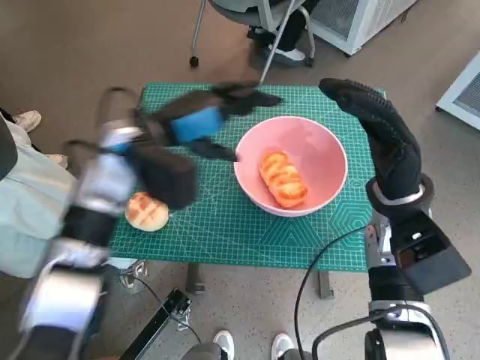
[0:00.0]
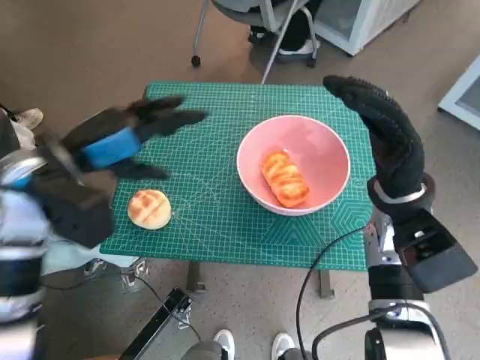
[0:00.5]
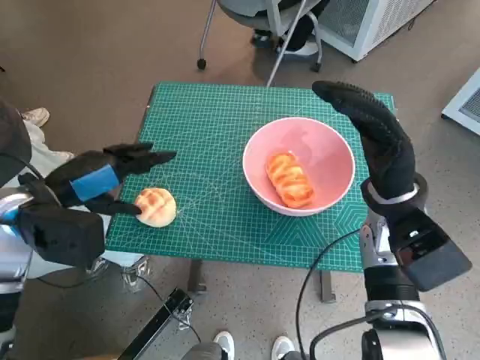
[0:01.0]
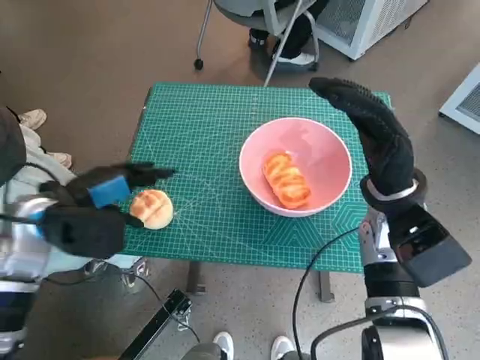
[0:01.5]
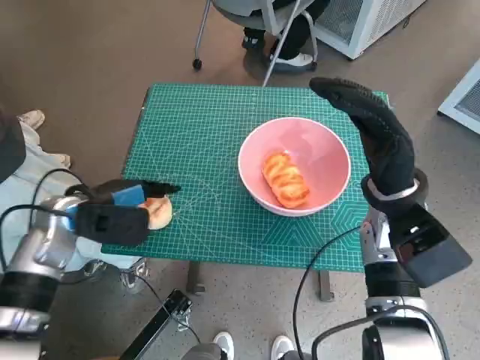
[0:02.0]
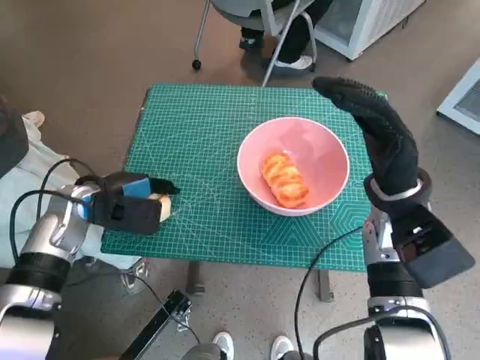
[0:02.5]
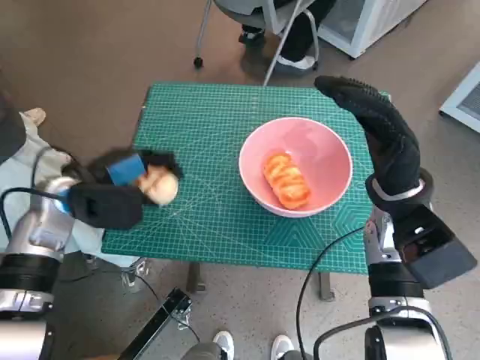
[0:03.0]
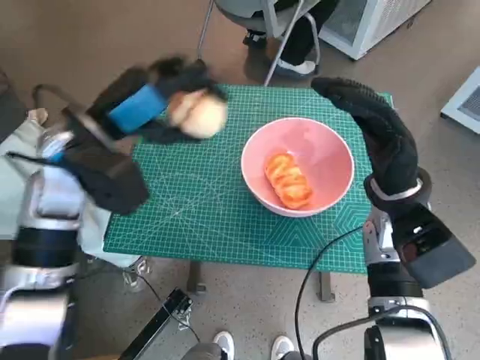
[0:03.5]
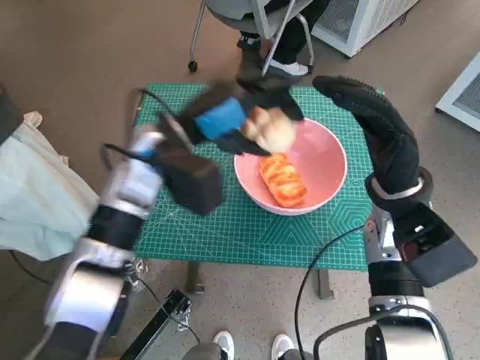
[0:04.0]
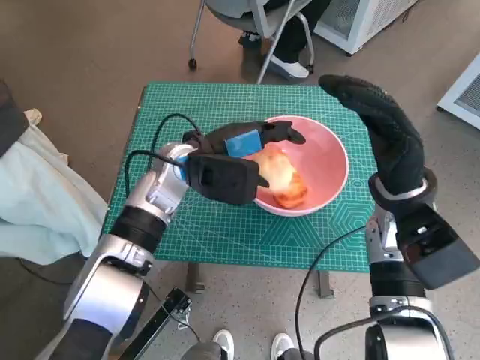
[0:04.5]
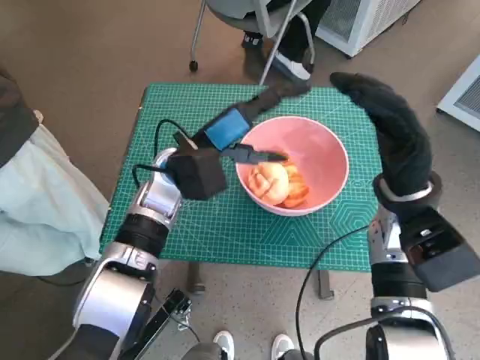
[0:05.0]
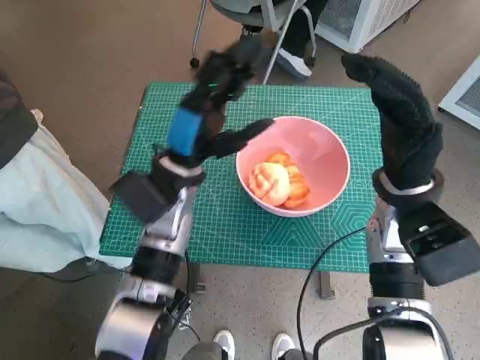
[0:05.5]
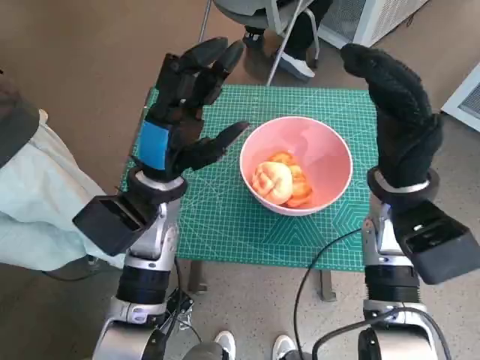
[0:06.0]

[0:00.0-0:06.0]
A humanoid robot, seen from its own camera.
Task of the whole recording: Push the bowl to the center of the table and put the bread into the bowl.
Step, 0:00.0 to 0:02.5: Grasp the round bread with left hand.
Step, 0:03.0 to 0:04.5: Place the round bread in pink bowl with left hand.
0:00.0 to 0:02.0: The left hand goes approximately 15 cm to the left, downward and backward.
0:02.0 to 0:04.0: The left hand goes approximately 15 cm to the right and upward.
0:04.0 to 0:06.0: The left hand is displaced downward by roughly 5 cm.

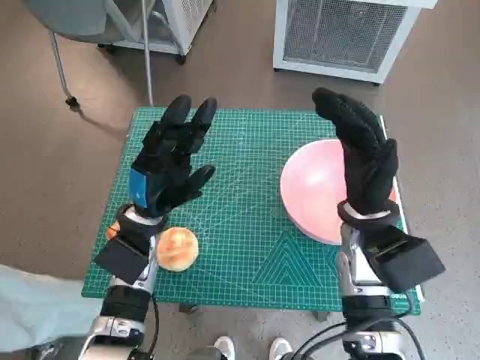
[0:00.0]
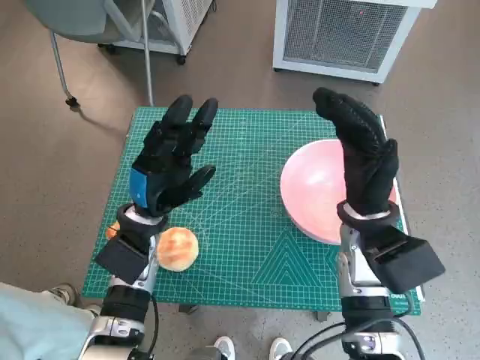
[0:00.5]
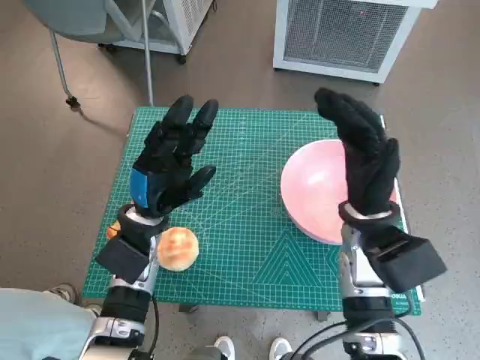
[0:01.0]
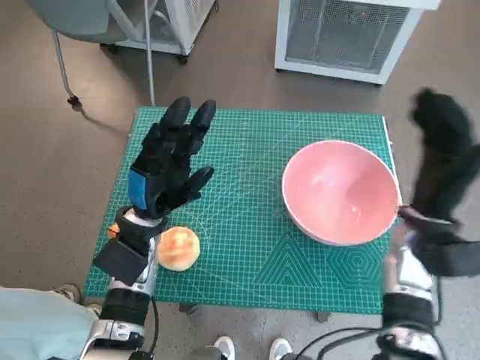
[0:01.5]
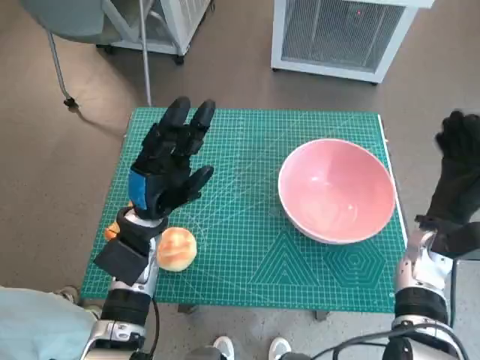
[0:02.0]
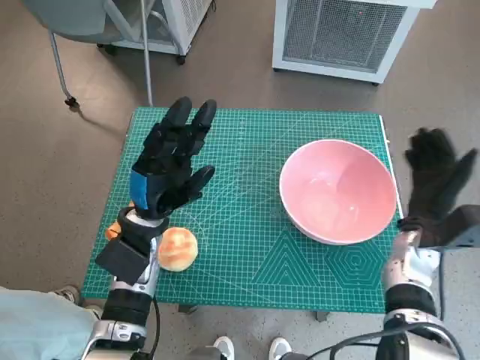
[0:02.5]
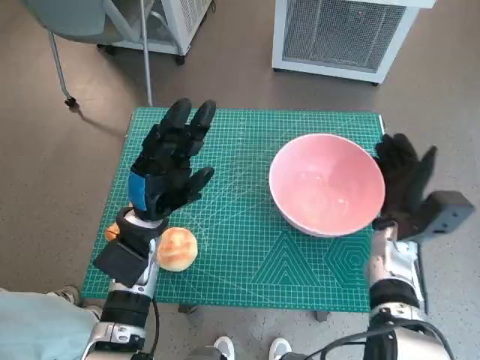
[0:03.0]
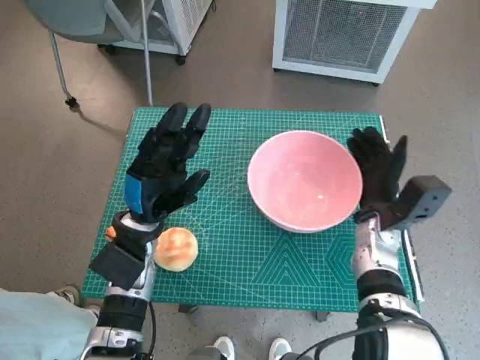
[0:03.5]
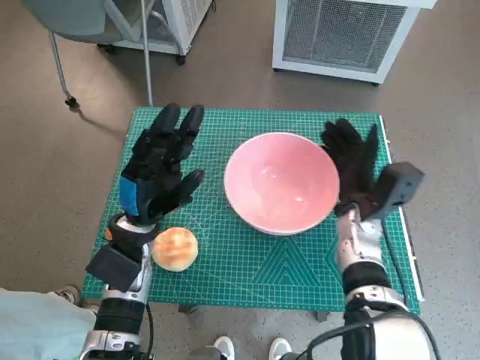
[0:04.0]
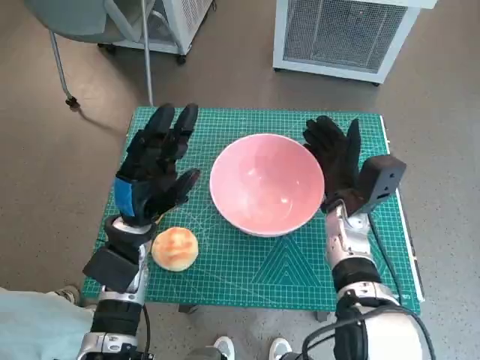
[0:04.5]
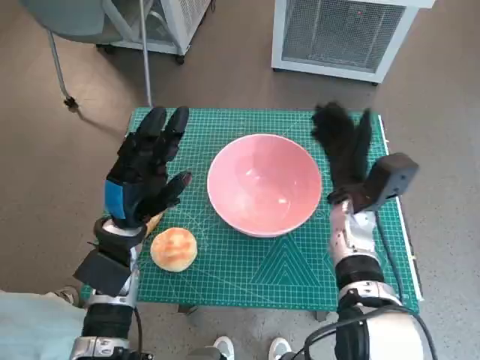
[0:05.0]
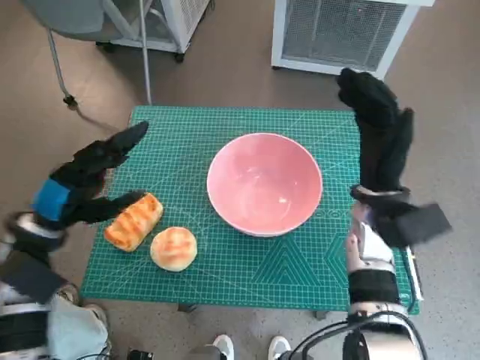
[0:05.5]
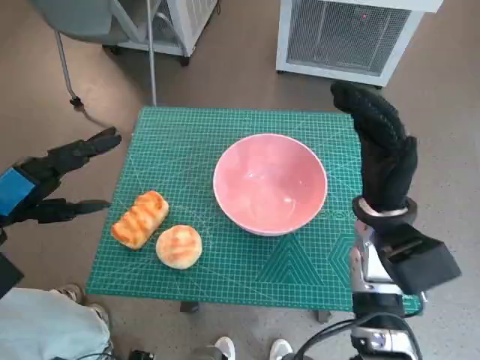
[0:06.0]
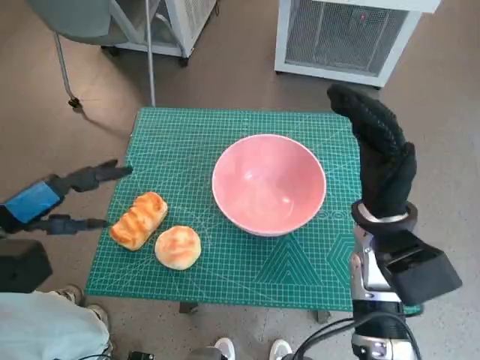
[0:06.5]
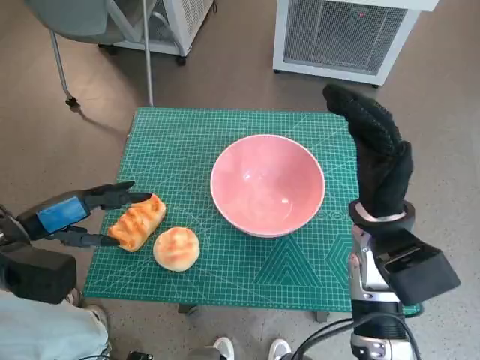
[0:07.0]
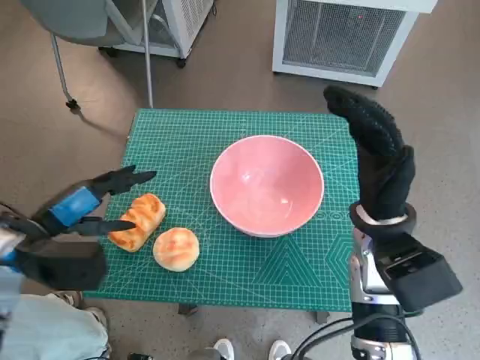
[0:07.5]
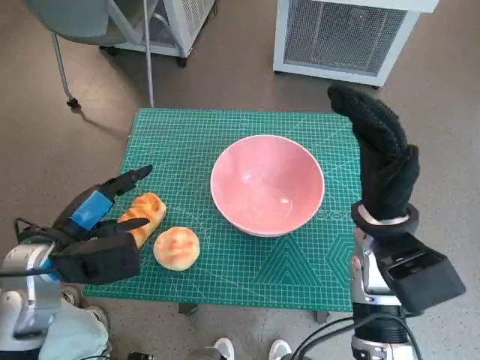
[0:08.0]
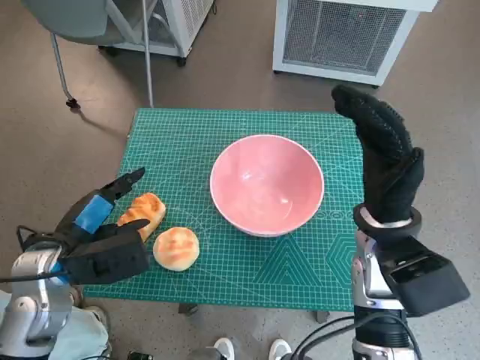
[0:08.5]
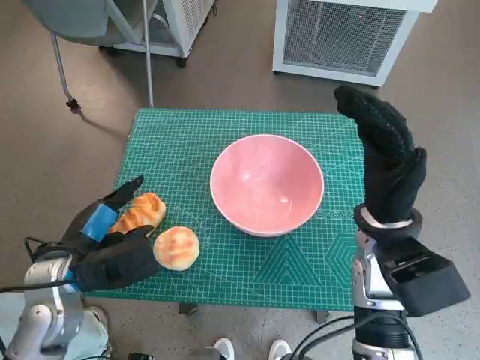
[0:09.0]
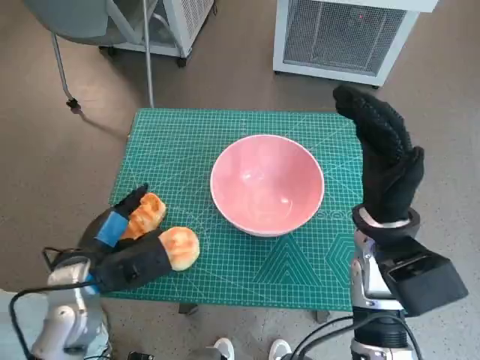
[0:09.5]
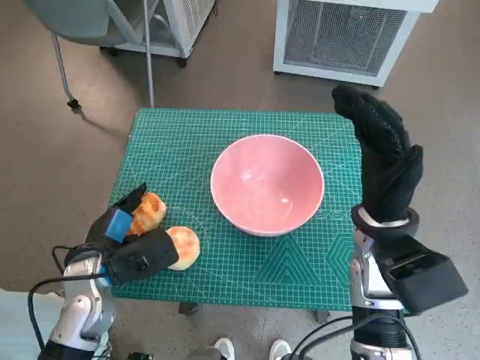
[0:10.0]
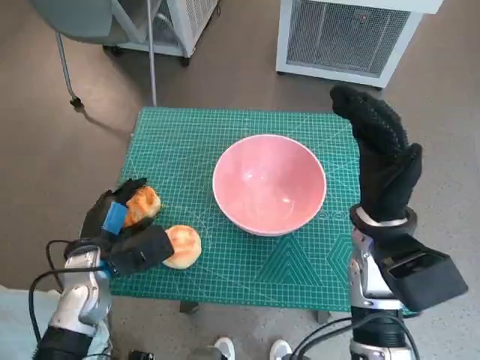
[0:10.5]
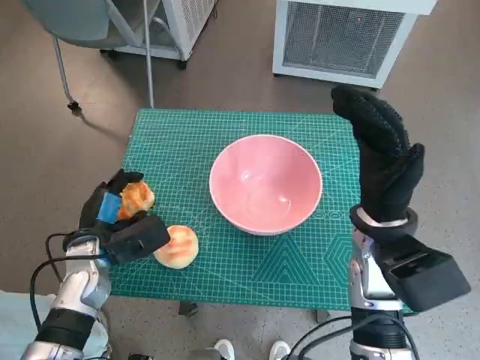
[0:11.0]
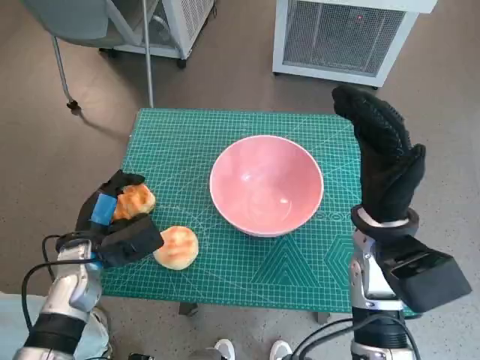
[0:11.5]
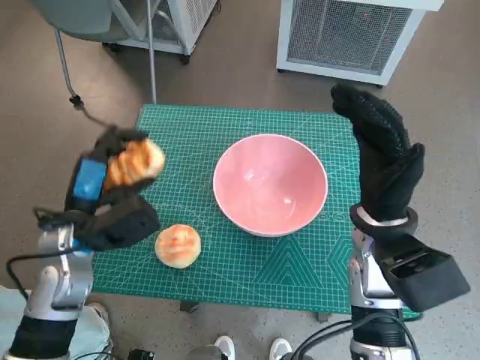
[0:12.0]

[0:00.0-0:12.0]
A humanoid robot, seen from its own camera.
Task of the whole recording: Push the bowl to the center of the table and put the bread into the bowl.
Step, 0:00.0 to 0:05.0: Move the pink bowl to the center of table with right hand.
Step, 0:05.5 to 0:10.5: Grasp the long bread with left hand.
0:02.0 to 0:04.0: The right hand is displaced to the left by approximately 10 cm.
0:04.0 to 0:06.0: The left hand is displaced to the left and upward by some 20 cm. Meanwhile the right hand moves upward, some 10 cm.
0:06.0 to 0:08.0: The left hand travels to the right by approximately 5 cm.
0:08.0 to 0:10.0: The left hand shifts approximately 5 cm downward.

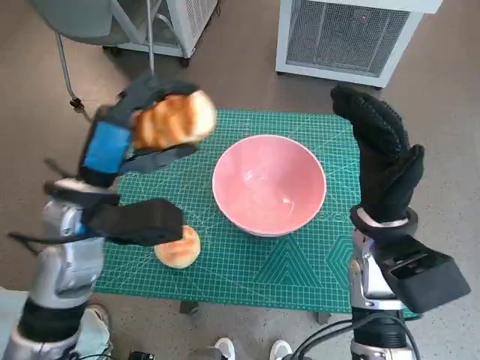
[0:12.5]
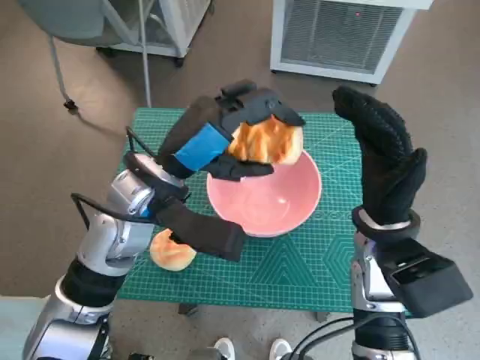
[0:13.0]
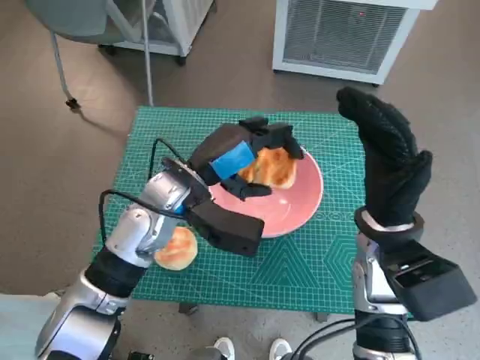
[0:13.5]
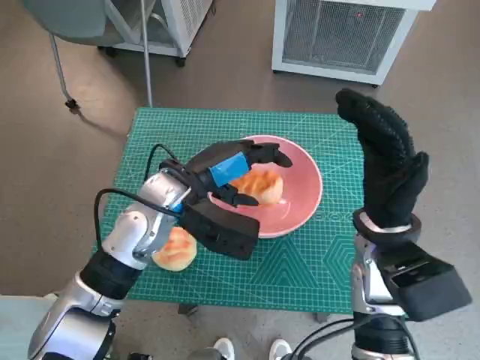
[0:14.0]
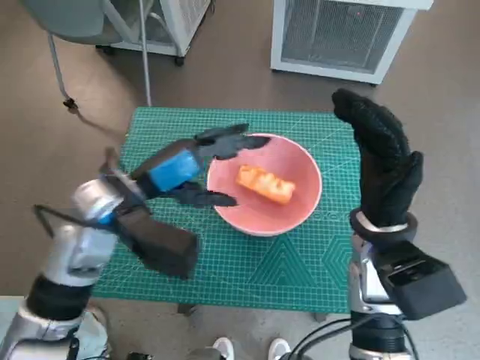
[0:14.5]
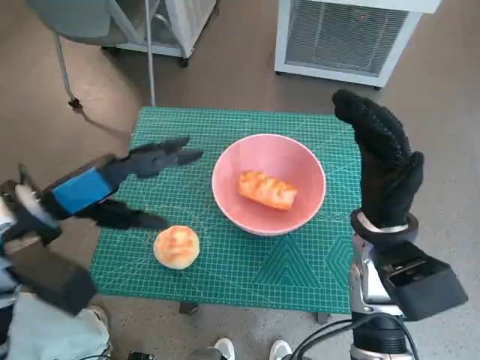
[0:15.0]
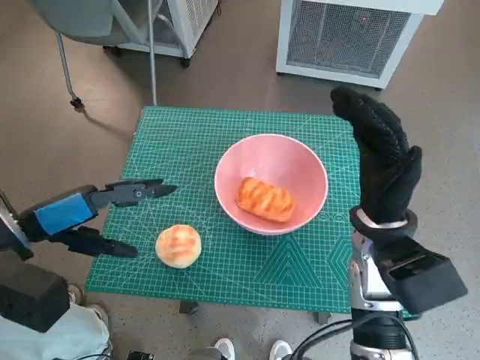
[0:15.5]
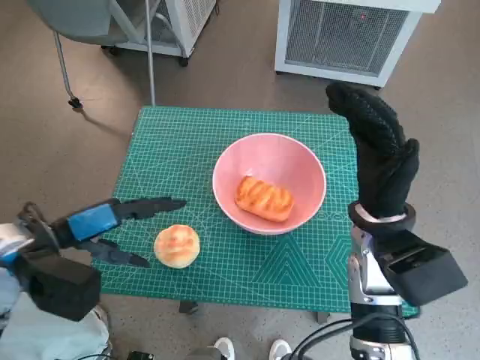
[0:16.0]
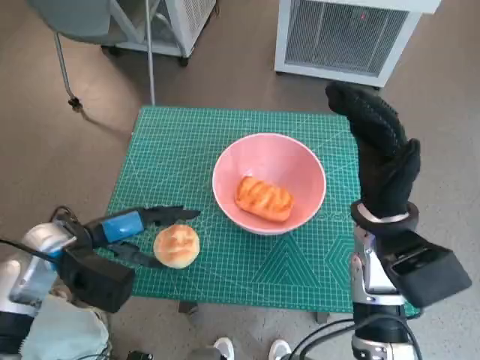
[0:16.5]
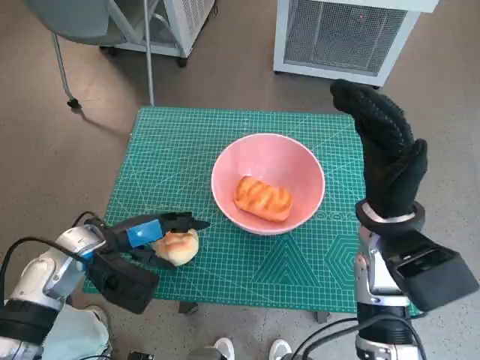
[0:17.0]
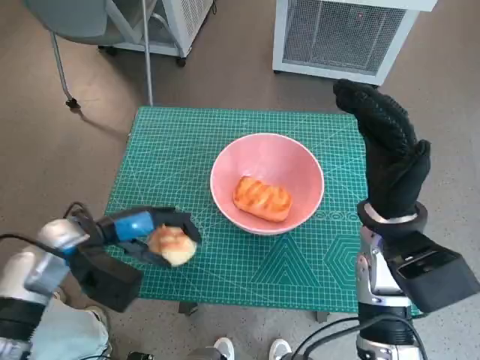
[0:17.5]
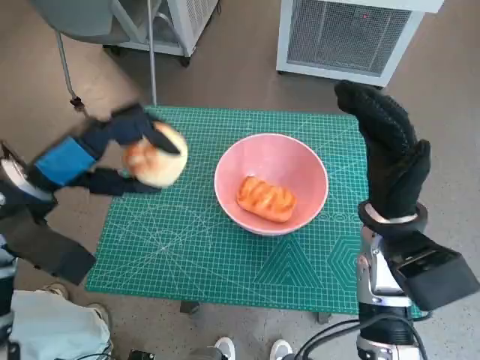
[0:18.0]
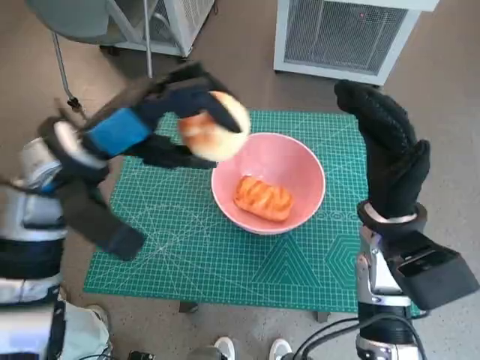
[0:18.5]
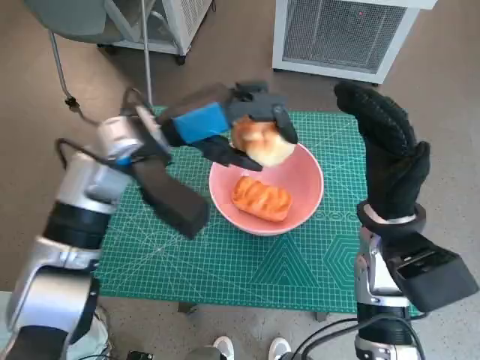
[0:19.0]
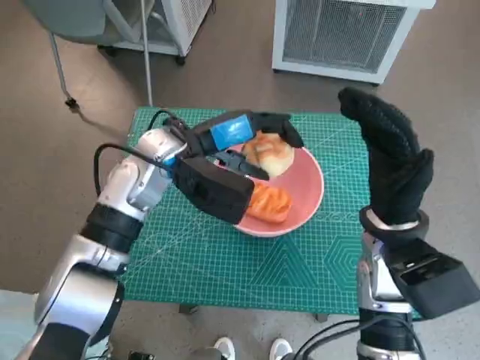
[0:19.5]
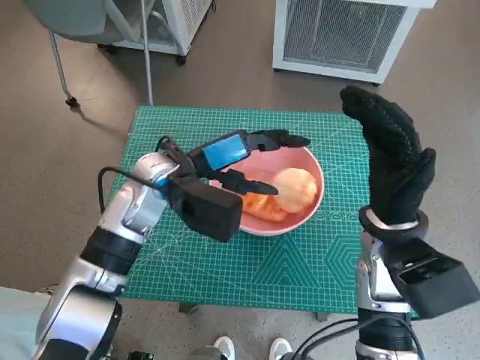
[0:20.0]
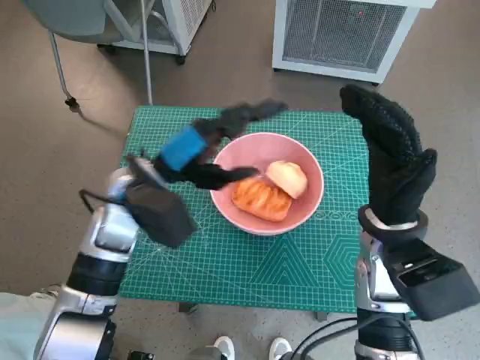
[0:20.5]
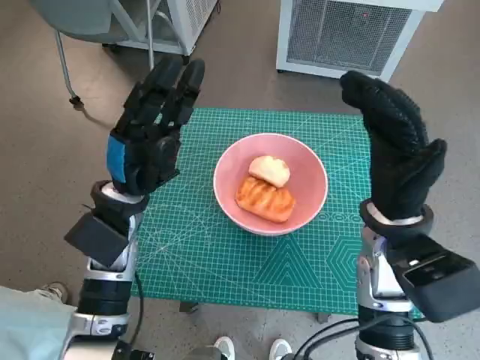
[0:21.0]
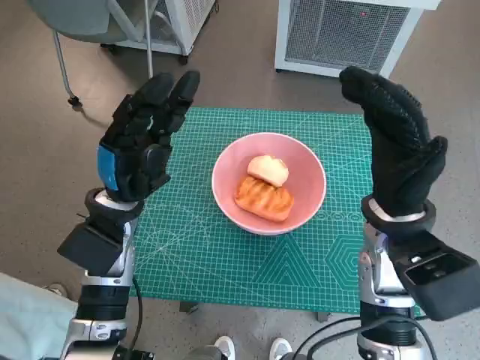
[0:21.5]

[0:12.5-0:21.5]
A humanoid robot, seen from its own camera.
Task of the whole recording: Push the bowl to the center of the table and put the bread into the bowl.
Step, 0:14.5 to 0:17.0: Grasp the round bread with left hand.
Step, 0:17.5 to 0:20.0: Place the round bread in pink bowl with left hand.
0:14.5 to 0:17.0: The left hand moves downward and to the left, approximately 15 cm.
0:17.0 to 0:19.5: The left hand moves to the right, upward and forward, about 20 cm.
0:19.5 to 0:21.5: The left hand shifts roughly 10 cm to the left, backward and downward.
